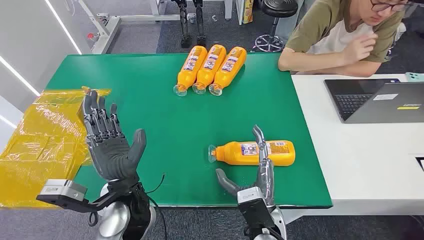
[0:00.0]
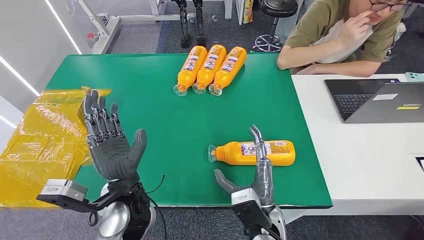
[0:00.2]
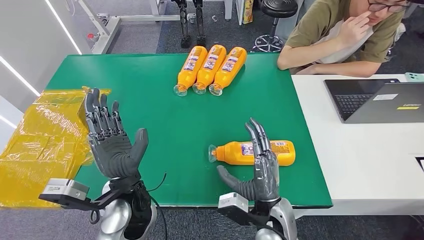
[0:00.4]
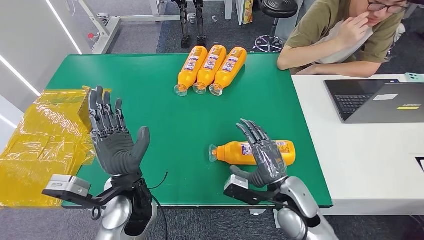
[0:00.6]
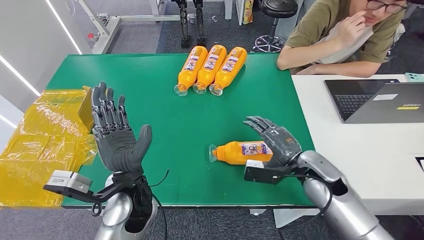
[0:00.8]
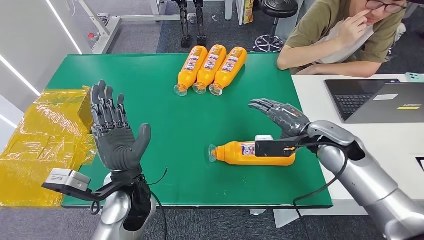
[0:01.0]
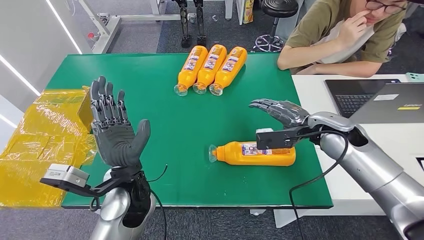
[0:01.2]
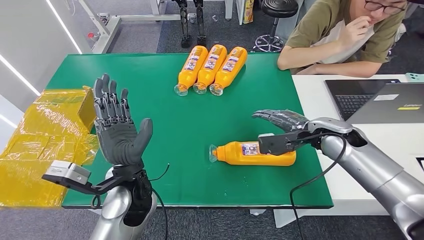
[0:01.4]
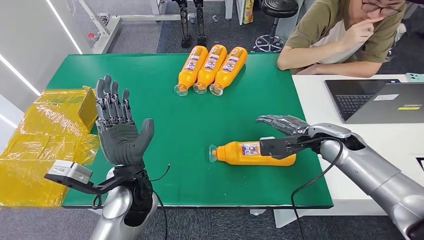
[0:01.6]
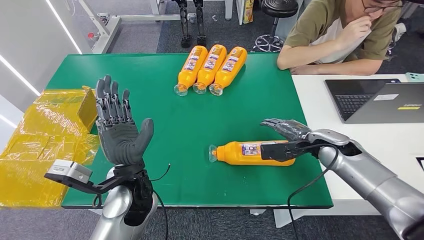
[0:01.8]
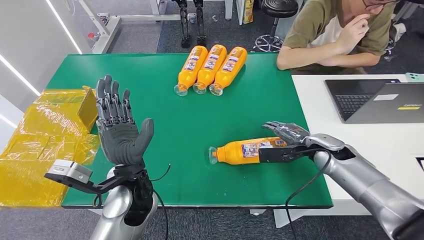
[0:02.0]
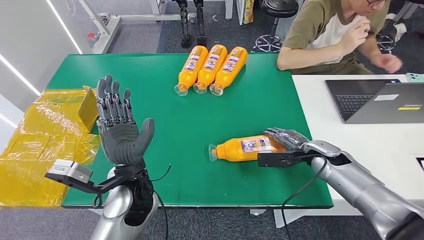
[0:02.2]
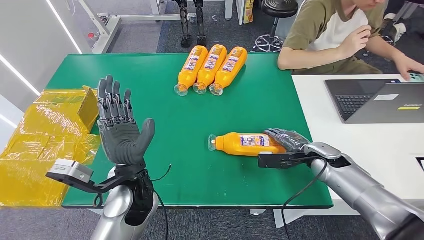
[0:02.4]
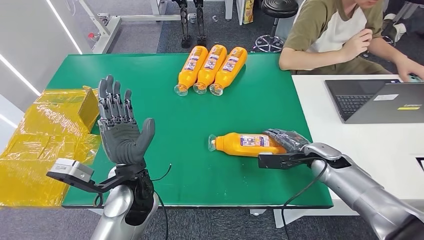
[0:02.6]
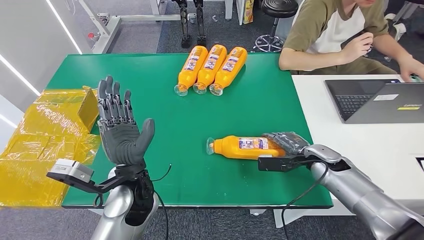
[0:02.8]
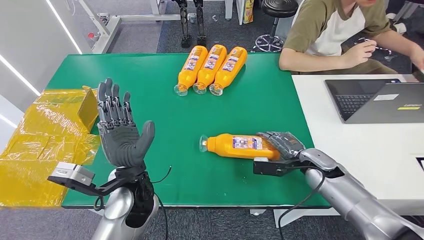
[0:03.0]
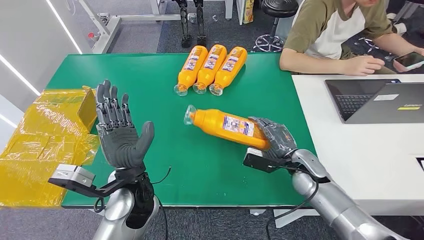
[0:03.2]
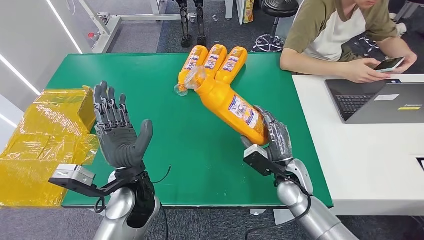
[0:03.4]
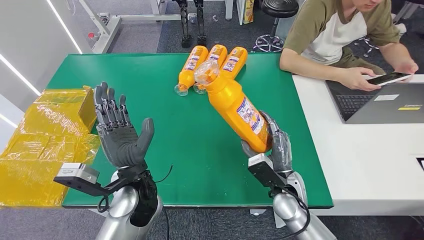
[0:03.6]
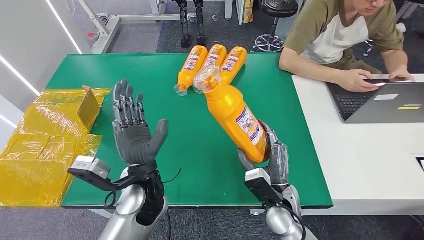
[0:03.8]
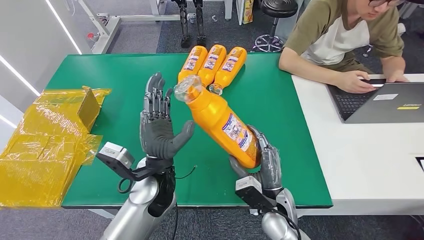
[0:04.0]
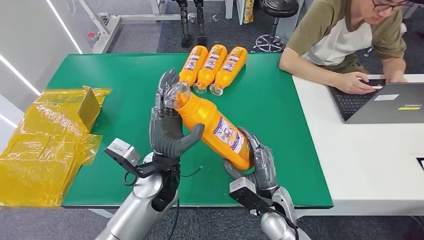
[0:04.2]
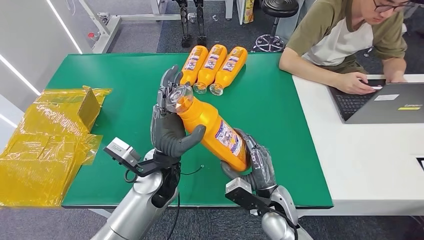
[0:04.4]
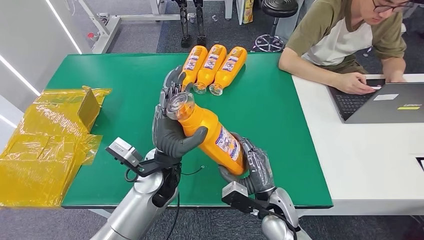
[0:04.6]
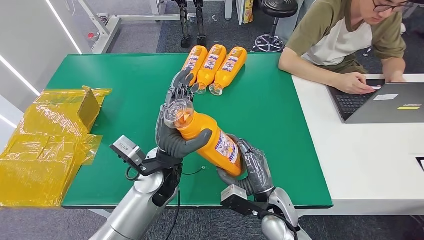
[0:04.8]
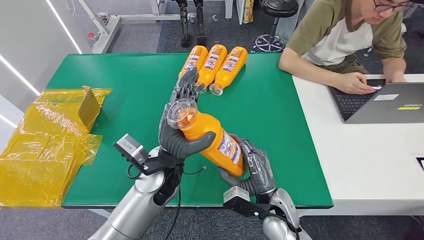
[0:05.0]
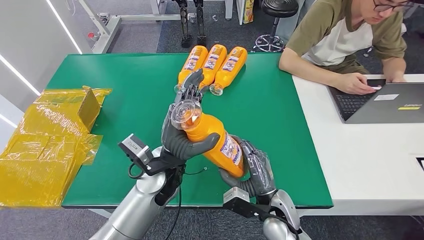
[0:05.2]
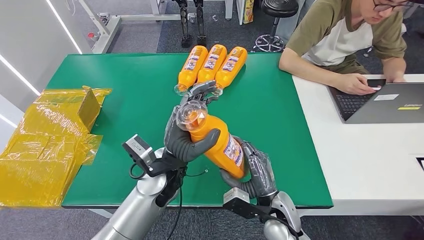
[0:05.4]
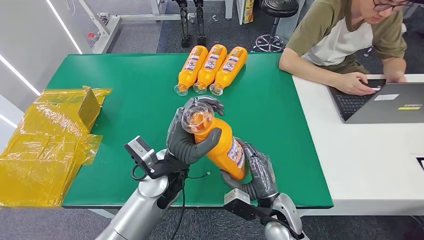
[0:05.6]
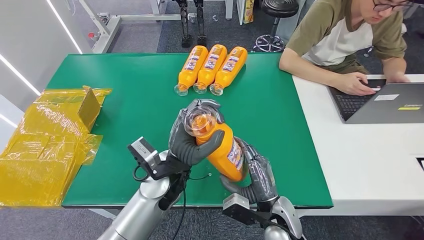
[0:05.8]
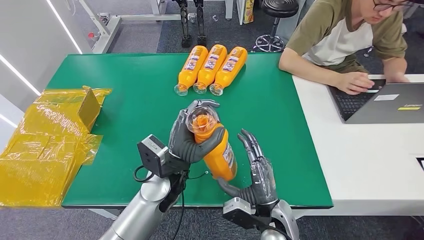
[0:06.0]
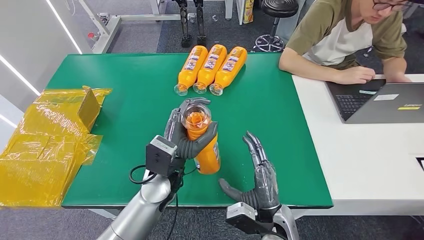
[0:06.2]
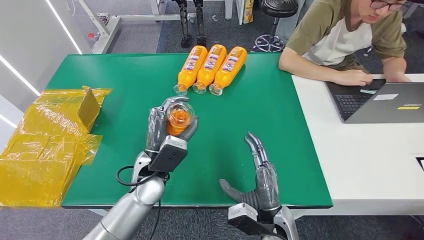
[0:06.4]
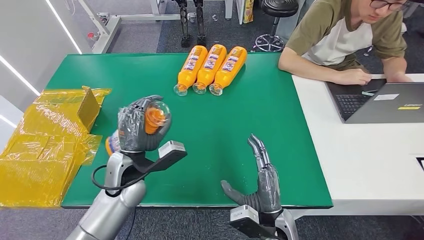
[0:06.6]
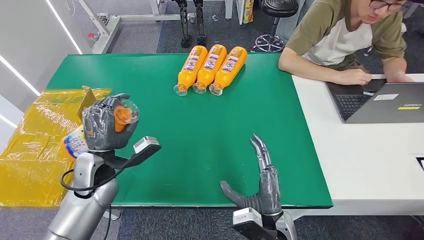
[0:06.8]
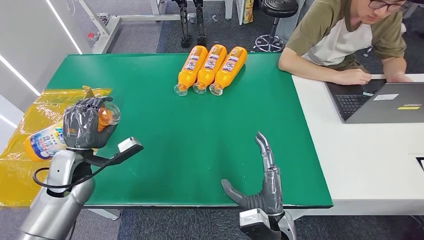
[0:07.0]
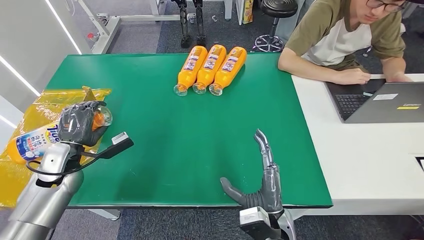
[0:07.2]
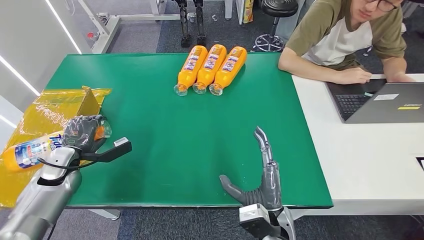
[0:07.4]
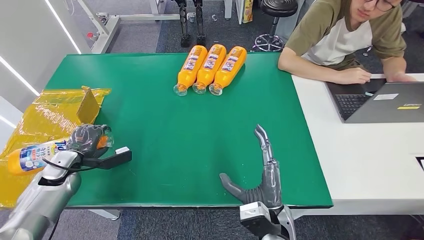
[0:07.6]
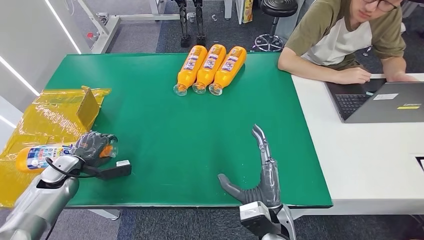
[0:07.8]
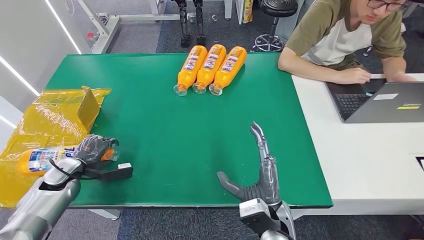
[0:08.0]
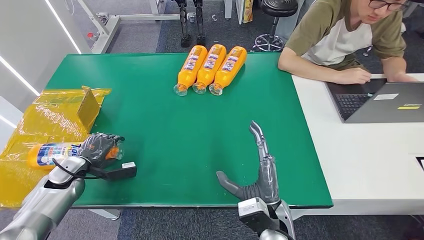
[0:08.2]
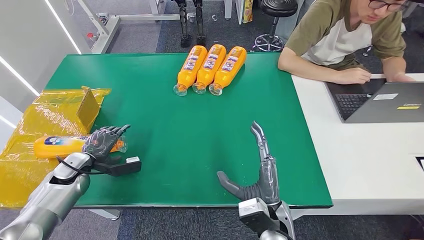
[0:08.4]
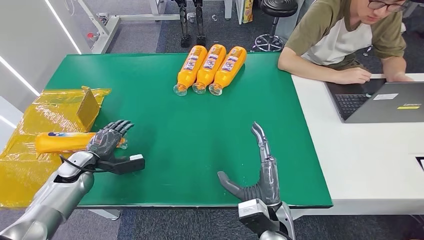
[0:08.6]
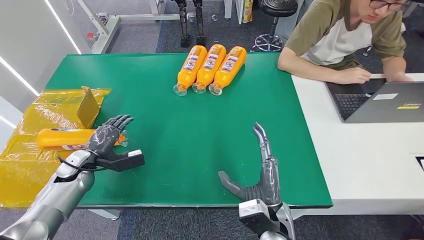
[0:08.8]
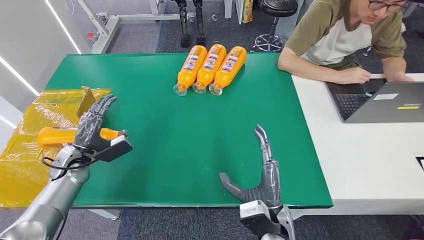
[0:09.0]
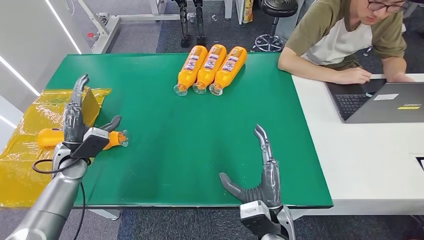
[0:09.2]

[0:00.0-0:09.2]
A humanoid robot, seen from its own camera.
Step, 0:00.0 to 0:03.6: Pick up the bottle from the table.
Step, 0:03.8 to 0:09.2: Turn the bottle to the front side.
0:01.6 to 0:03.0: The right hand goes some 10 cm downward.
0:06.2 to 0:07.6: The left hand is displaced to the left by about 35 cm.
0:07.6 to 0:09.2: The left hand heads to the right, covering roughly 5 cm.

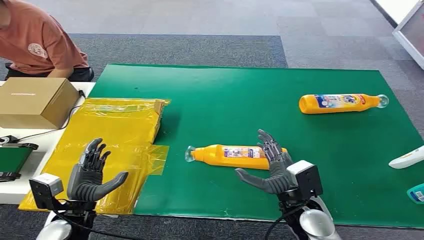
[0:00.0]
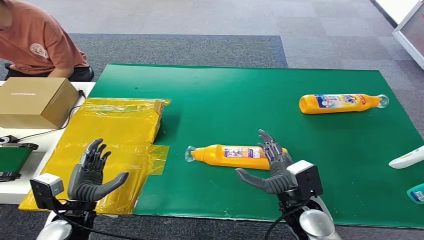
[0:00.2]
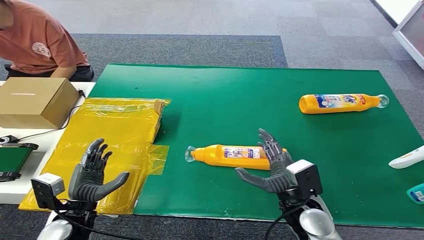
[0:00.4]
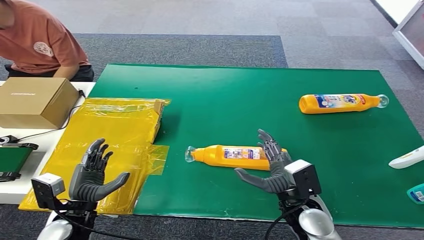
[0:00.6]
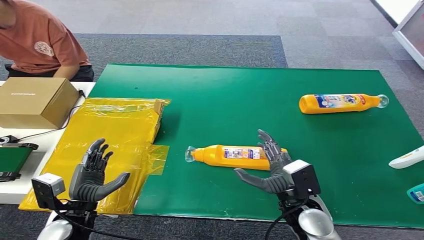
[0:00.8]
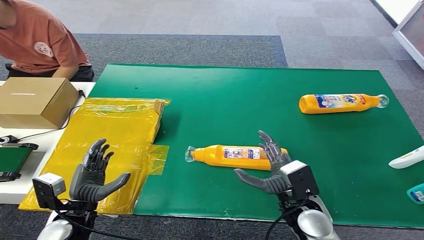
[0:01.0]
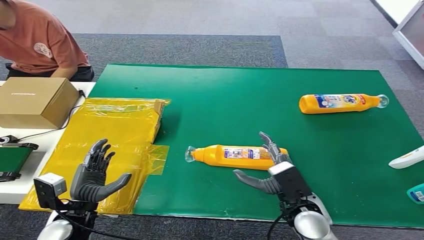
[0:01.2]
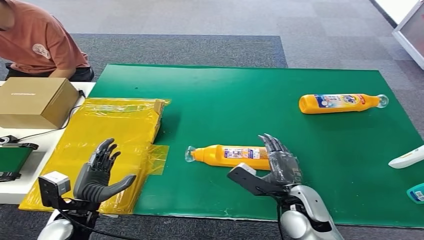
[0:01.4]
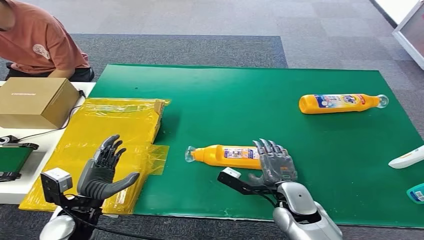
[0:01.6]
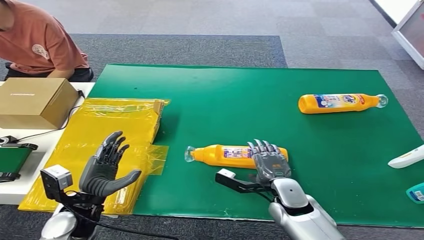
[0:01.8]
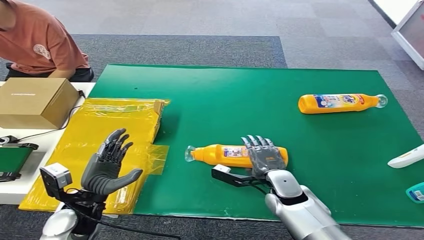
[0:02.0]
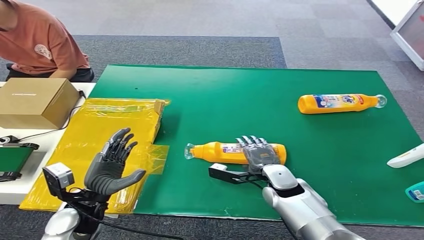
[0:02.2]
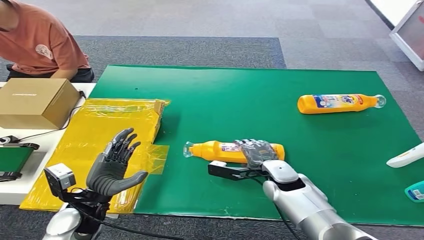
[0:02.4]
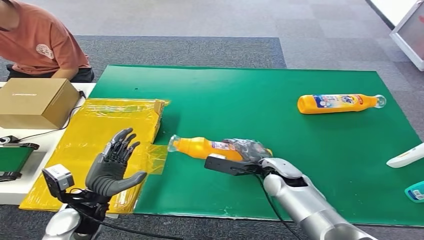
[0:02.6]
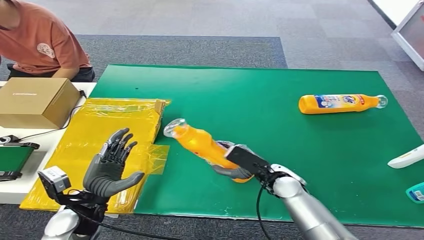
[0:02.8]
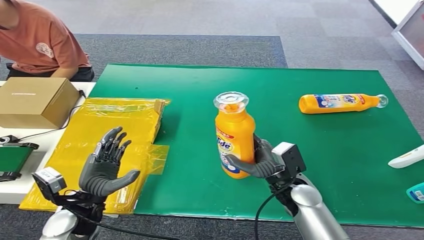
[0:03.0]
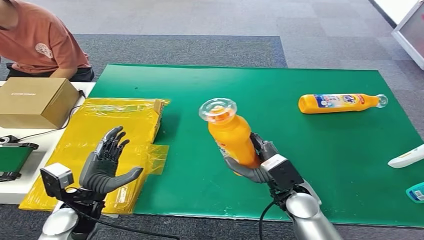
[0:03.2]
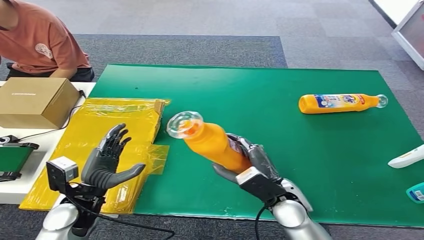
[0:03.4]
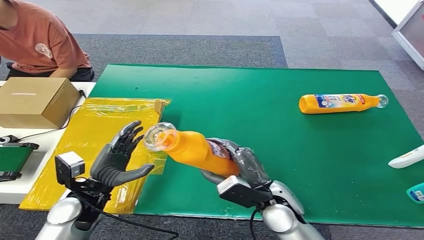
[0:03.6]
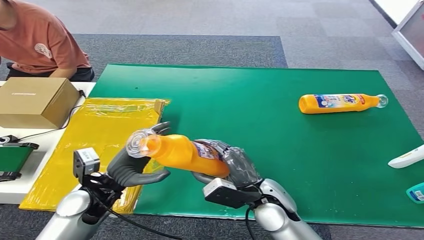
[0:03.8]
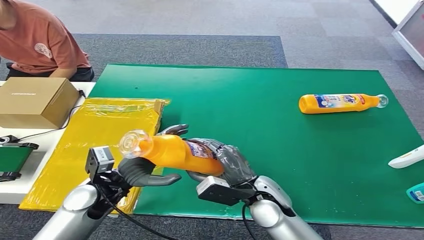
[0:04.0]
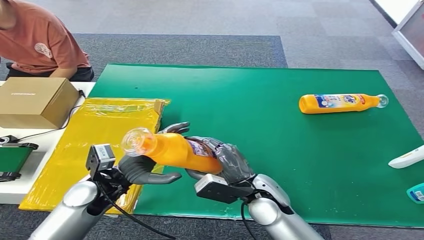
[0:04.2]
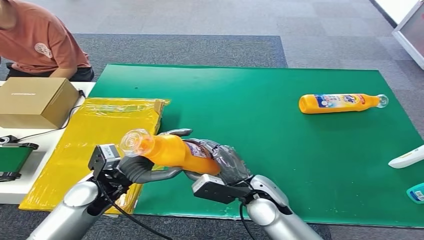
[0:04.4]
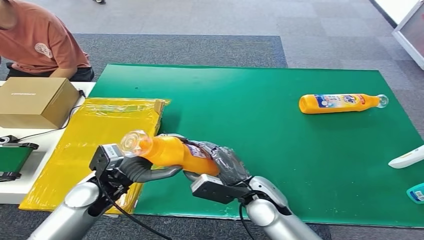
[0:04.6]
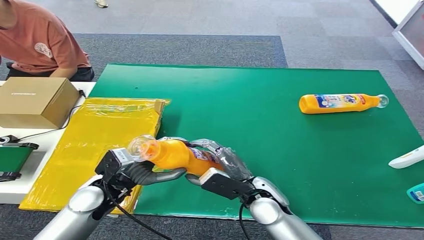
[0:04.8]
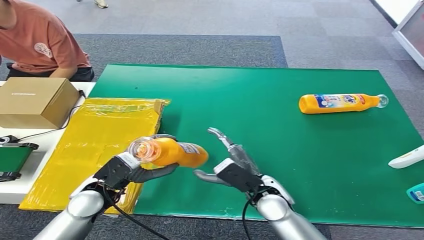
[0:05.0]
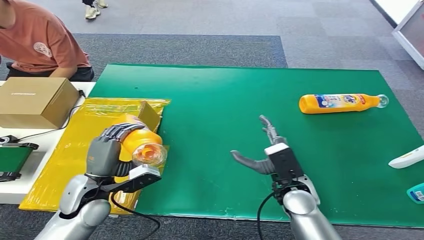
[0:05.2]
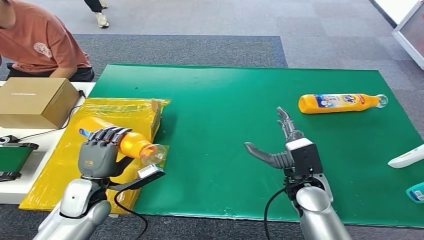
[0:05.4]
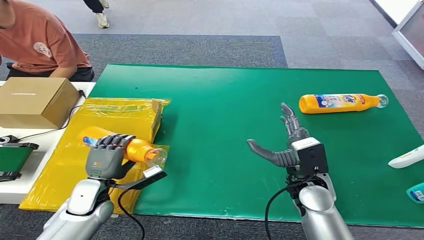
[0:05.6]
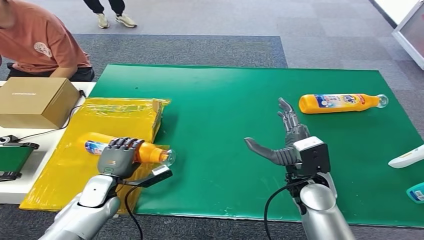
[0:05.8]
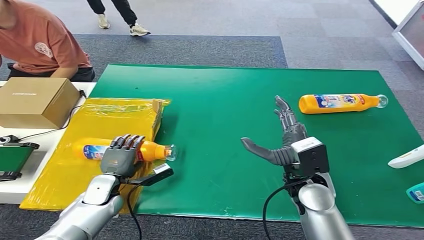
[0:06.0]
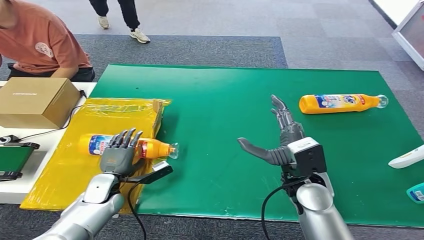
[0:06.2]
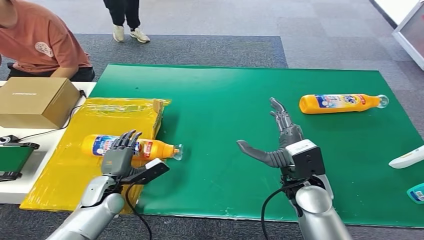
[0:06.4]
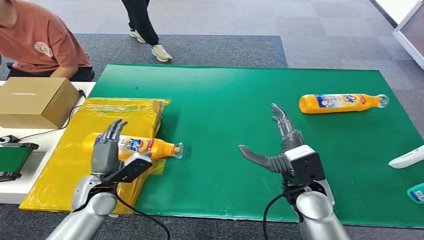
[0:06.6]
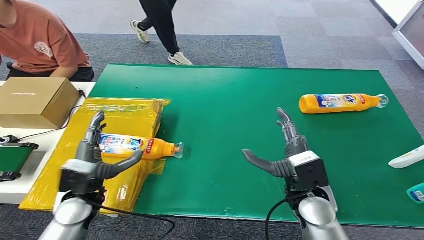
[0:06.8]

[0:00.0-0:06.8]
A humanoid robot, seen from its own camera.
Step, 0:00.0 to 0:03.0: Pick up the bottle from the table.
Step, 0:03.4 to 0:06.8: Turn the bottle to the front side.
0:01.4 to 0:02.8: The right hand moves forward, roughly 10 cm.
0:02.8 to 0:04.0: The left hand shifts by about 5 cm, while the right hand is displaced backward and to the left by approximately 10 cm.
0:04.0 to 0:05.4: The right hand heads to the right, covering roughly 10 cm; the left hand ends up some 5 cm from where it was.
0:05.4 to 0:06.8: The left hand moves approximately 10 cm downward and comes back.
